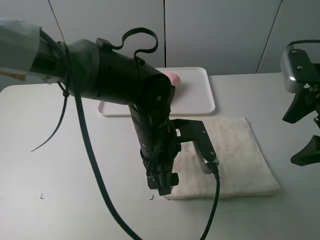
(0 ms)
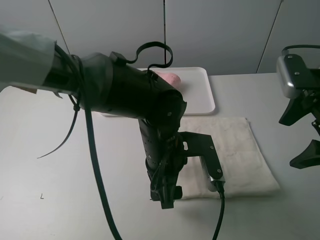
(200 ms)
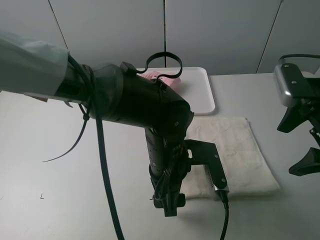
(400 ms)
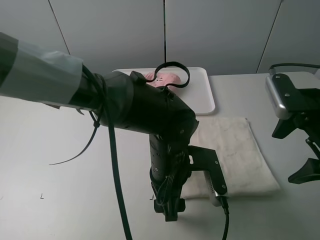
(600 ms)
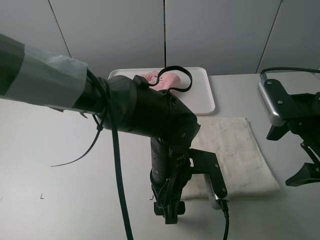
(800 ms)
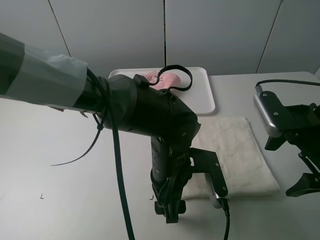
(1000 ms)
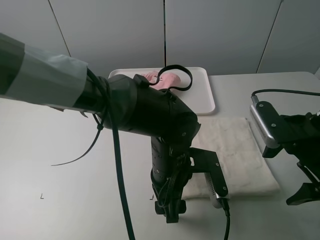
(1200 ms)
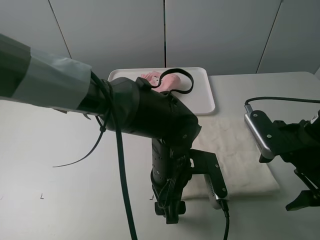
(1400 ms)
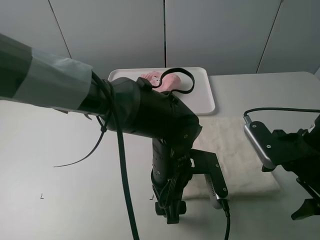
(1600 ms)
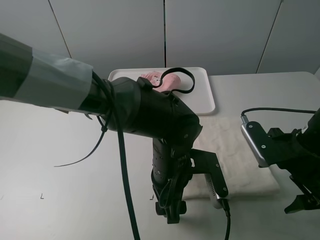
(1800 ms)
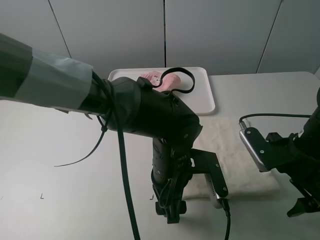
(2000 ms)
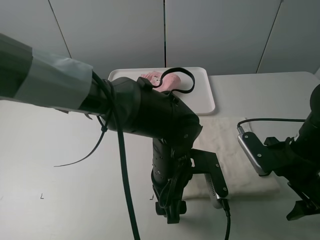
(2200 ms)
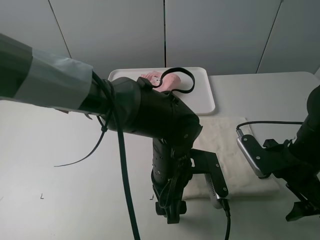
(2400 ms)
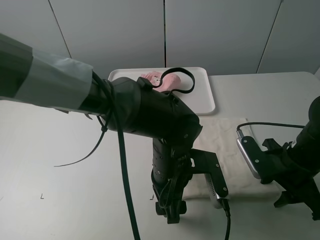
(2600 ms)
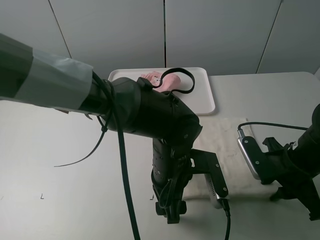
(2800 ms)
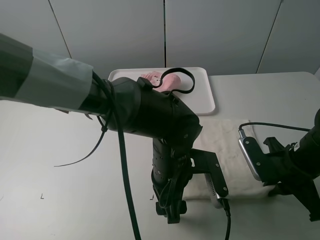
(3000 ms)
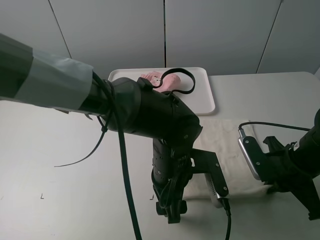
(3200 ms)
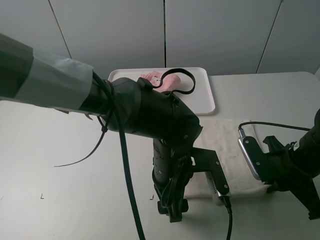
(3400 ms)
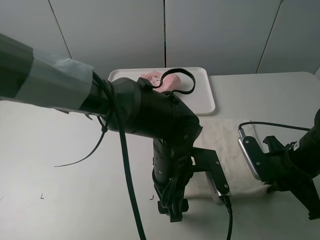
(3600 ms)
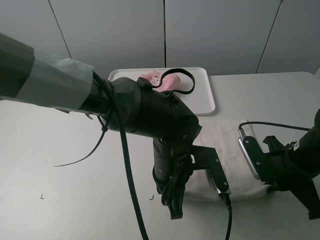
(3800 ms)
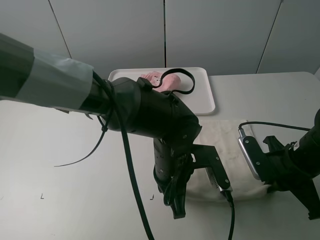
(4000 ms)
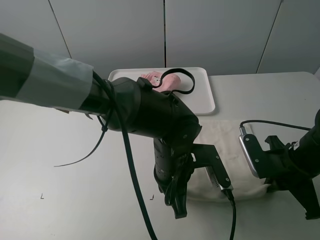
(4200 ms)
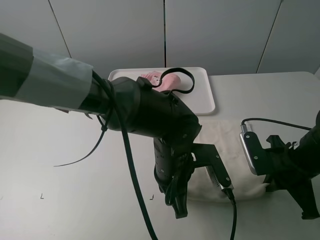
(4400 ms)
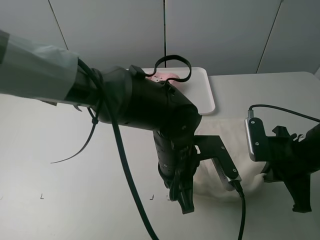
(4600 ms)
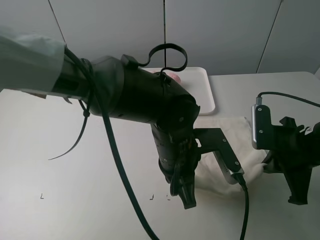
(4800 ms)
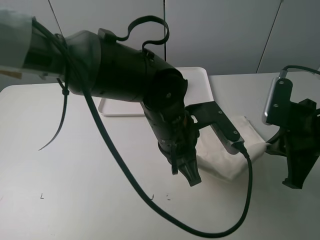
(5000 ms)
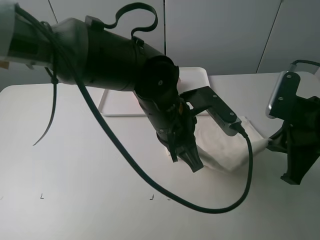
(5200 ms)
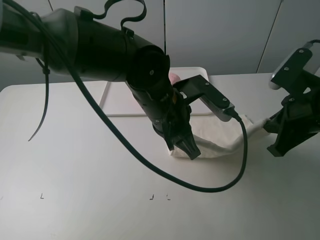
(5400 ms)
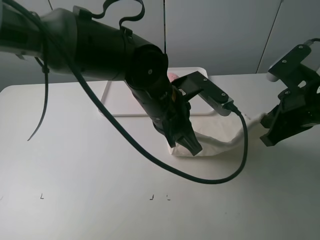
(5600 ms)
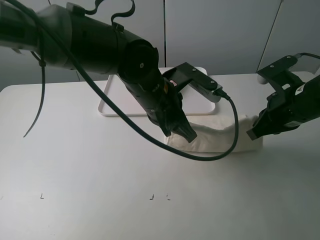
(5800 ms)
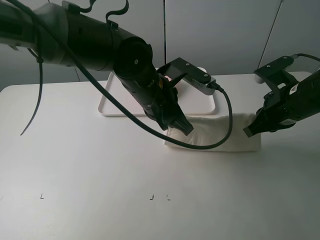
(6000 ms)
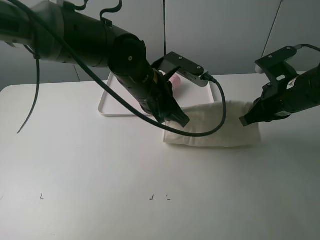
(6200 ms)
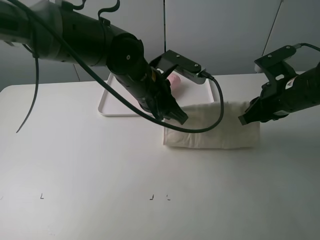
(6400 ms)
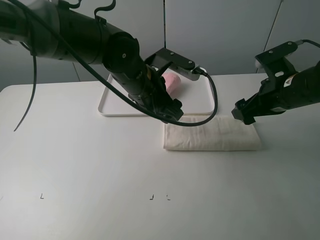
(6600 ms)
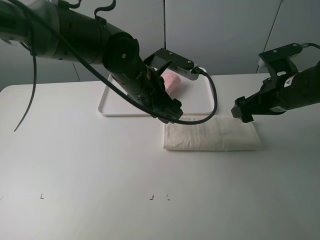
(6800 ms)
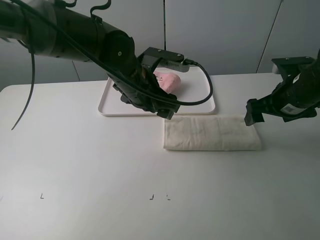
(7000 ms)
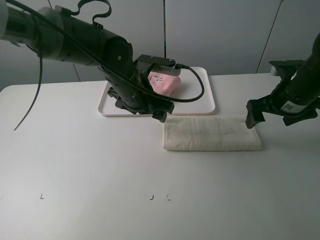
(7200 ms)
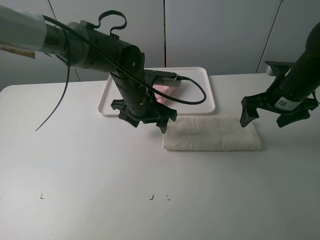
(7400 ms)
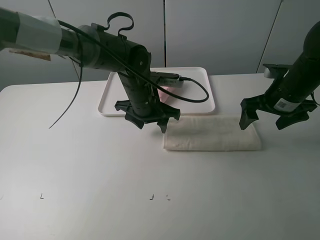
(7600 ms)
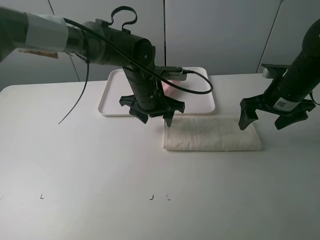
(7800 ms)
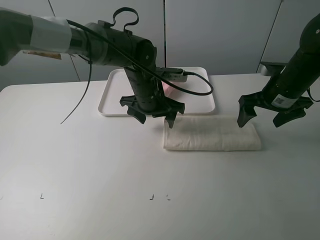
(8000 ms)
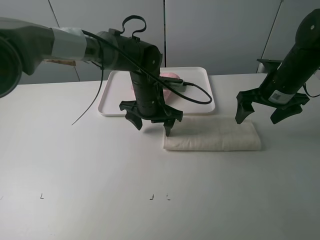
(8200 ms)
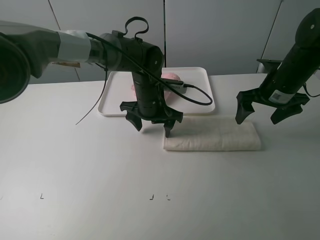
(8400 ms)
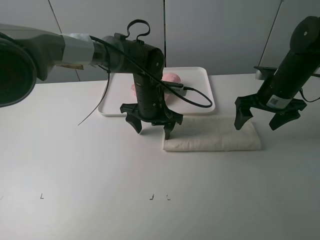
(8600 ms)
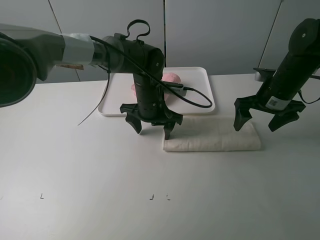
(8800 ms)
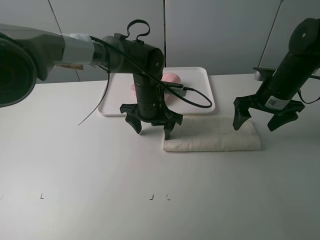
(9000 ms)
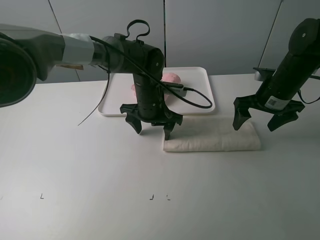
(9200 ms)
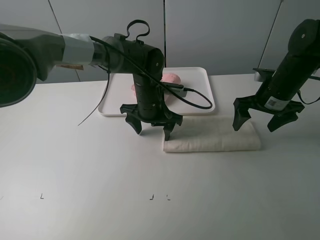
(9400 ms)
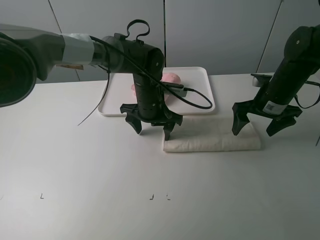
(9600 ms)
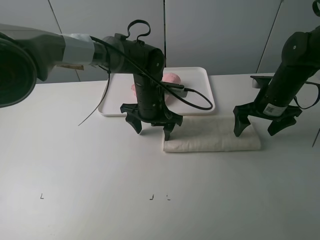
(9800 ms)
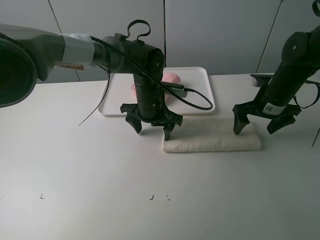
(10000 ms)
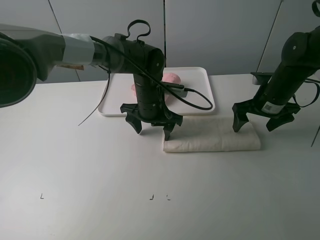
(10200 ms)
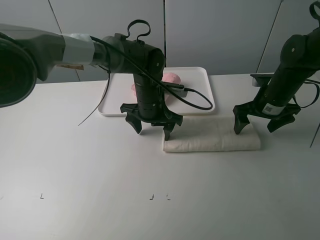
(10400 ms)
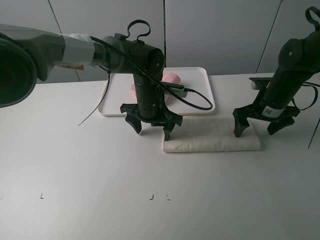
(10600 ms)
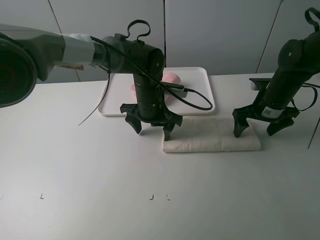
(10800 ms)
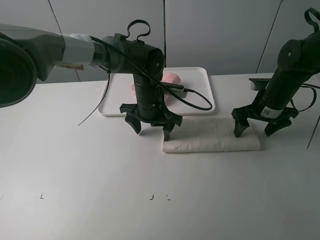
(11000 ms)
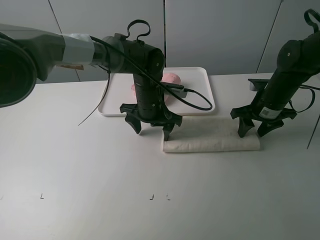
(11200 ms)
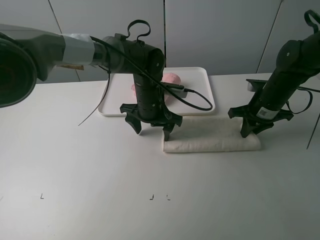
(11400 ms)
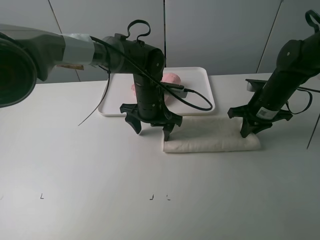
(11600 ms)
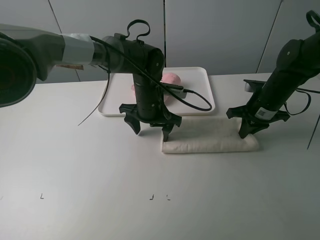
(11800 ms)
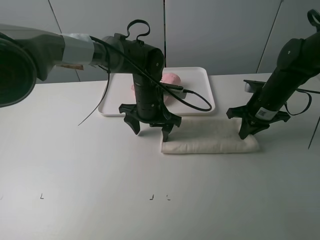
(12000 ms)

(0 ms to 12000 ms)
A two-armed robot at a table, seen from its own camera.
Task of the whole recording: fold one of the towels by two grippers and place it on the tray,then fold another towel by two grippers and place it on the folded towel.
Step, 0 ms - 4000 ms: Grasp the white towel with the left gripper.
Step, 4200 ms - 6800 ms: Fold the white towel upwards with the left gripper.
Step, 7000 ms - 8400 ms: Press the white towel with the left gripper.
Step, 8600 ms - 11600 ms: Grasp the white towel with the right gripper.
0 ms - 1600 ms: The right gripper moves downward, about 10 cm, while the left gripper changes place by approximately 5 cm.
1600 ms - 3000 ms: The right gripper goes some 5 cm downward, and closes its fingers.
3000 ms - 4400 ms: The left gripper closes.
4400 ms - 6000 ms: Both grippers travel together forward and upward, some 10 cm.
6000 ms - 7600 ms: The two grippers go roughly 5 cm forward. The right gripper opens its fingers. Meanwhile the left gripper opens.
7600 ms - 10400 ms: The grippers stay close to where they were, moving slightly.
10400 ms - 12000 ms: The right gripper closes.

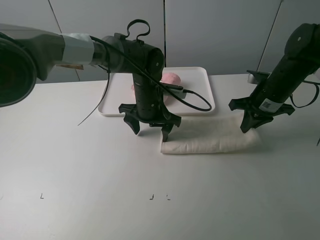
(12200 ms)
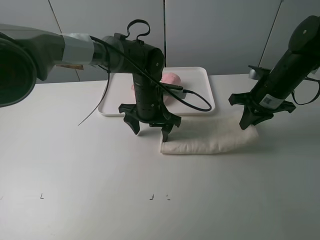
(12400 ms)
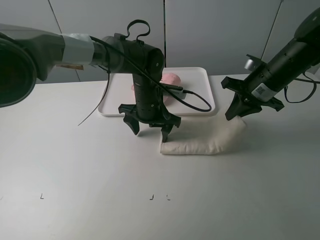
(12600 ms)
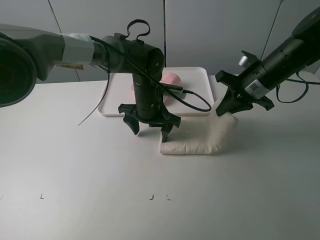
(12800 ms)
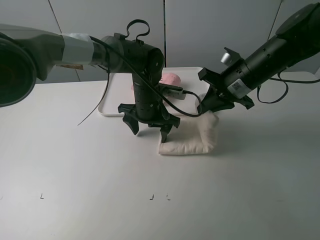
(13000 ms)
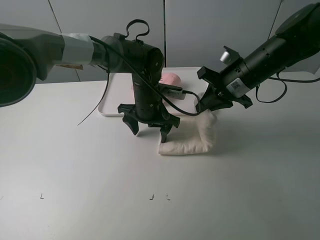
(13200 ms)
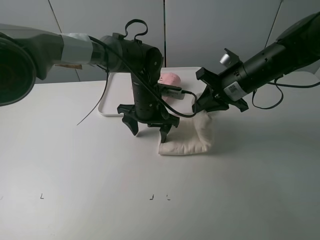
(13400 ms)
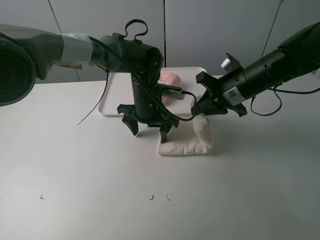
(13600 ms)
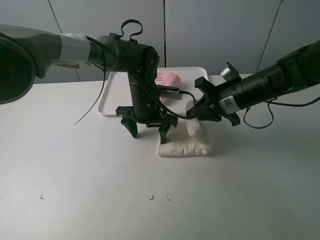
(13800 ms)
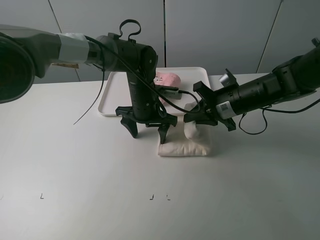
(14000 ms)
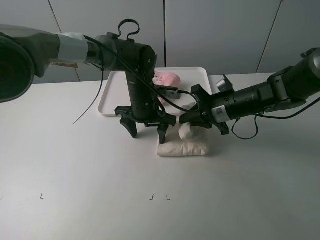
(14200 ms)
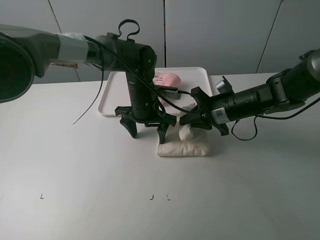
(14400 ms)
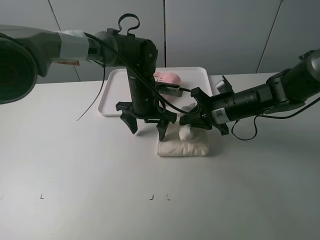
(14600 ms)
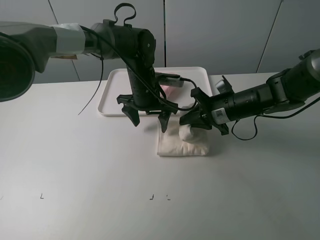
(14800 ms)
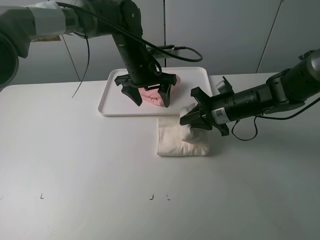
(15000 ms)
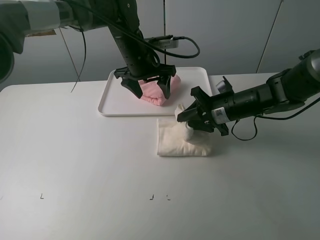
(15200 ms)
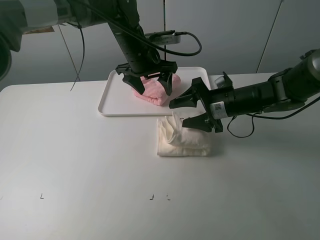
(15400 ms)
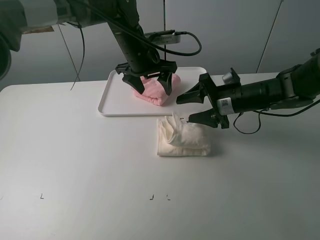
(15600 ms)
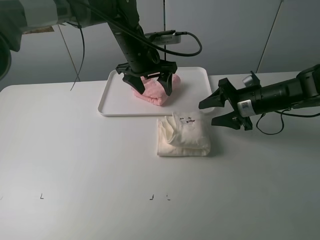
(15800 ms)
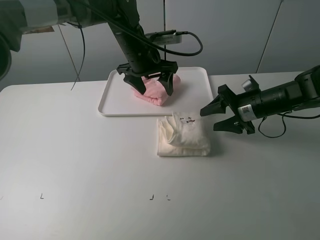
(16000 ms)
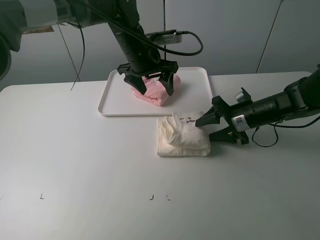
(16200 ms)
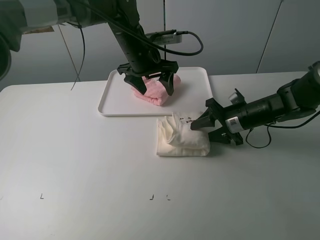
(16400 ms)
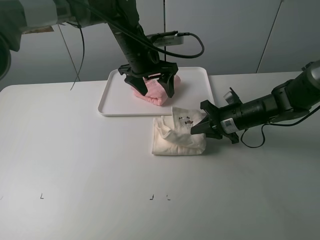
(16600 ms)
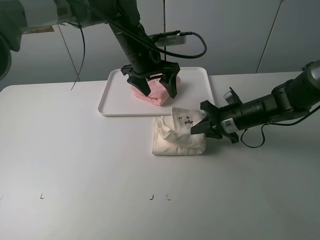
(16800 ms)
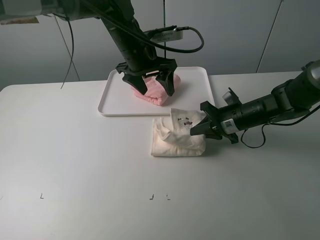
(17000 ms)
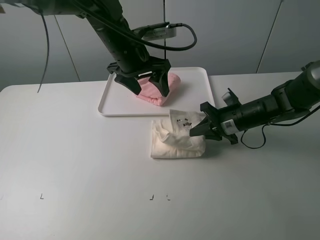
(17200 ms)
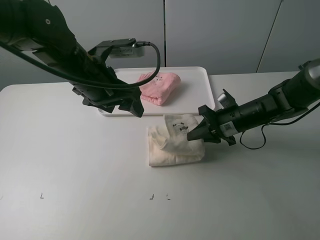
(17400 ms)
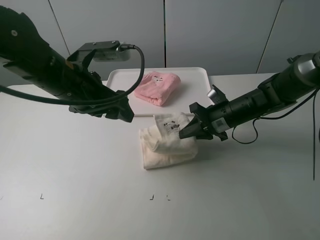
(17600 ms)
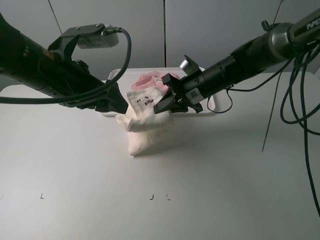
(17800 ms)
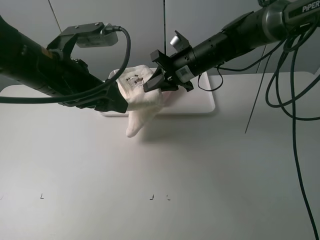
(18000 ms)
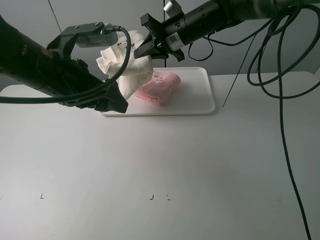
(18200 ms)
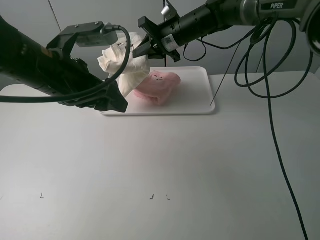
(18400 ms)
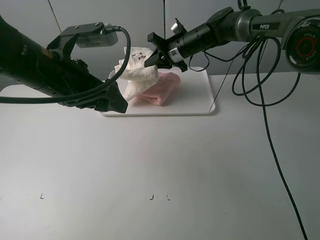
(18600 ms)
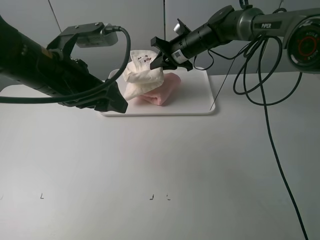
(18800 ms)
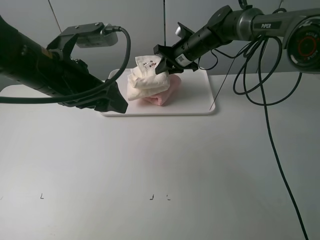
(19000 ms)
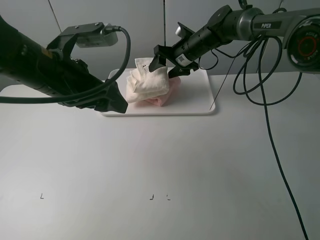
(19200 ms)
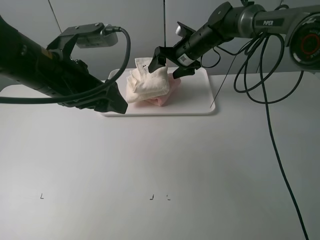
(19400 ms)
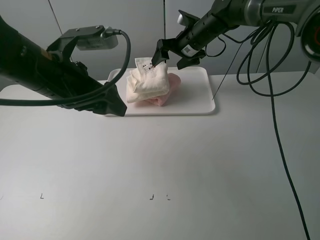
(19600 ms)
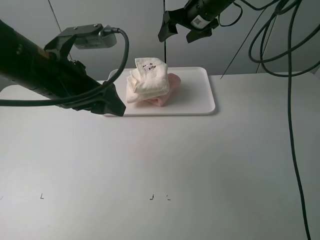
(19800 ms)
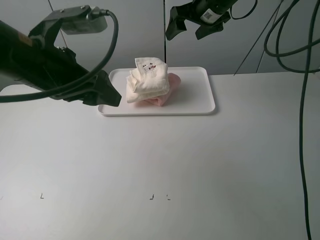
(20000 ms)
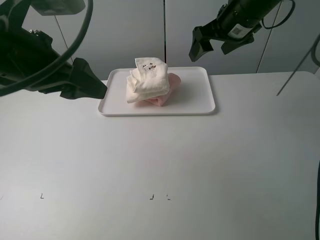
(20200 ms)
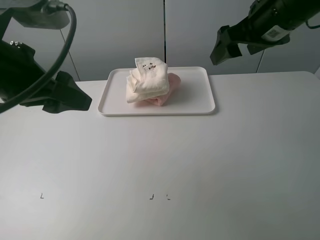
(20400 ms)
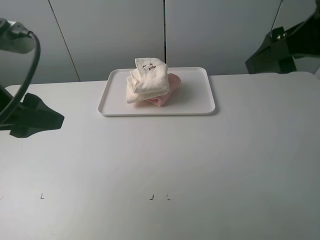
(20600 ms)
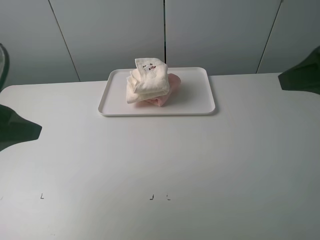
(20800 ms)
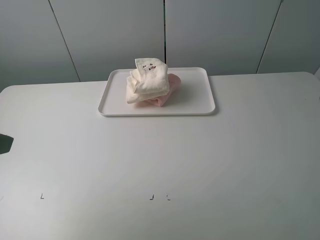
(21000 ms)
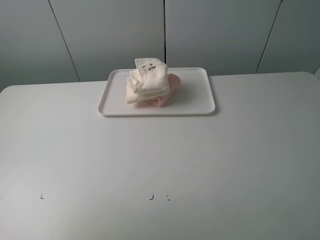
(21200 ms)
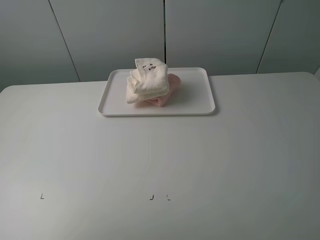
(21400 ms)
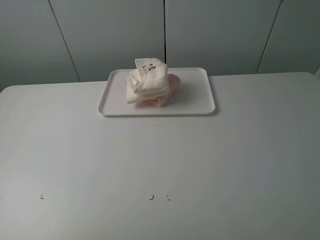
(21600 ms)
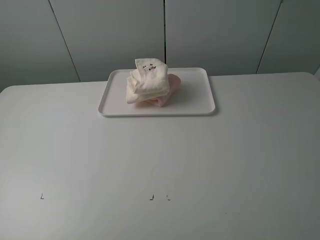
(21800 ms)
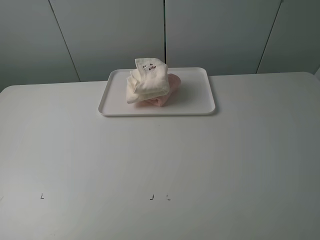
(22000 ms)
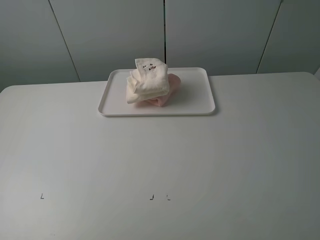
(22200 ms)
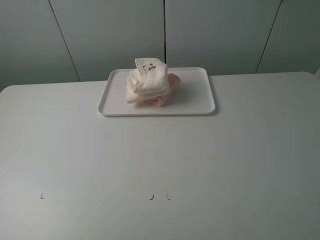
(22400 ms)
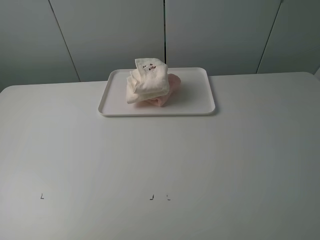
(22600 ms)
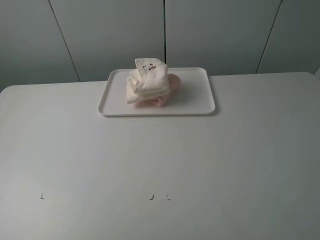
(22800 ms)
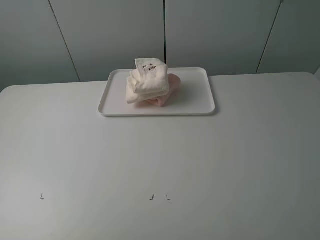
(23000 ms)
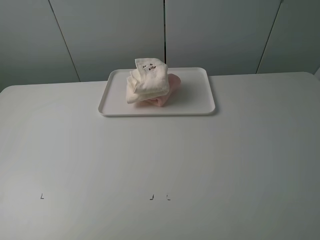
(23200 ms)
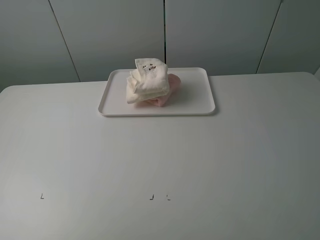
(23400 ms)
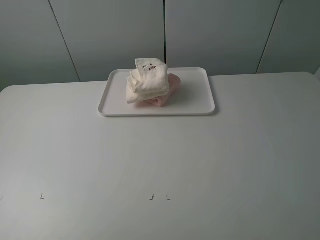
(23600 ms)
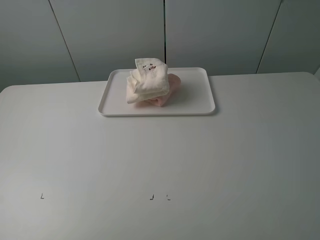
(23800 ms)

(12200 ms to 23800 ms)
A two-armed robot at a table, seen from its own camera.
Task of the whole recording: fold one of the towels by two grippers and place it on the tray,then fold another towel by two grippers and place it on the folded towel.
Step, 12200 ms - 15600 ms: Fold the white towel from right to left with right gripper.
Step, 15800 ms - 16800 ms: Grasp the white towel with the right gripper.
Step, 17000 ms - 19400 ms: Place the white towel on the pink towel with the right gripper.
12200 ms - 13600 ms: The right gripper travels to the left by about 5 cm.
13600 ms - 15000 ms: The left gripper travels upward and forward by roughly 10 cm. Meanwhile the right gripper heads downward, covering roughly 5 cm.
15000 ms - 16600 ms: The right gripper opens, then closes again.
16600 ms - 18000 ms: The right gripper shifts about 20 cm upward, to the left and forward. Meanwhile the left gripper goes some 20 cm backward and to the left.
18000 ms - 19400 ms: The right gripper travels forward by roughly 10 cm, and opens.
19400 ms - 21000 ms: The left gripper moves backward and to the left, about 20 cm; the right gripper shifts roughly 50 cm backward, upward and to the right.
21000 ms - 22400 ms: The left gripper shifts some 10 cm backward and to the left. Meanwhile the right gripper heads backward, covering some 10 cm.
